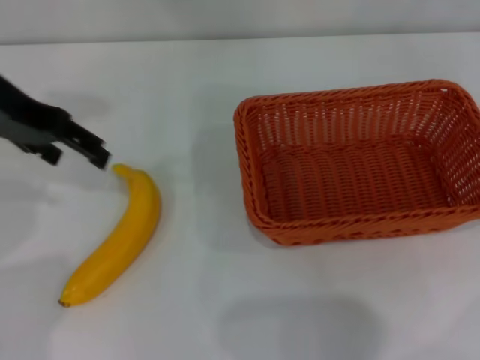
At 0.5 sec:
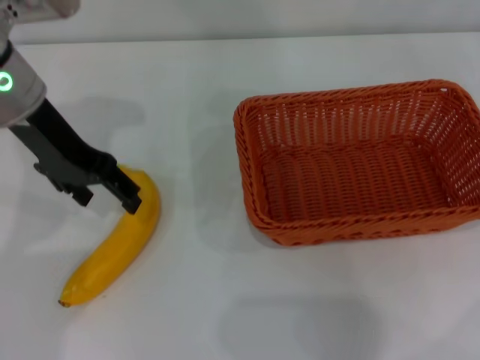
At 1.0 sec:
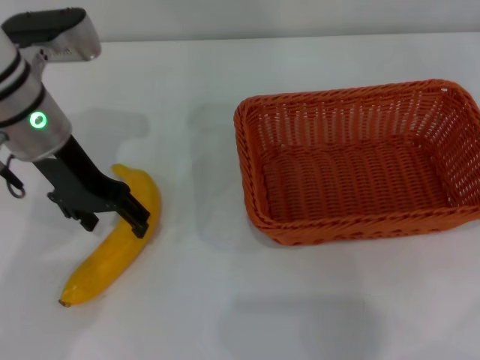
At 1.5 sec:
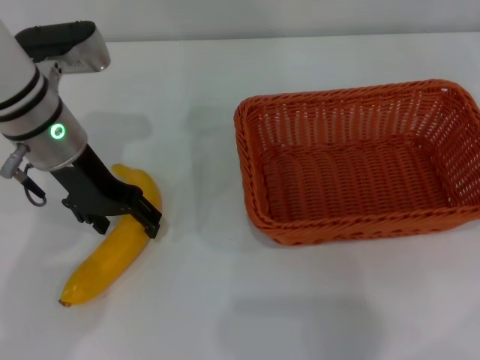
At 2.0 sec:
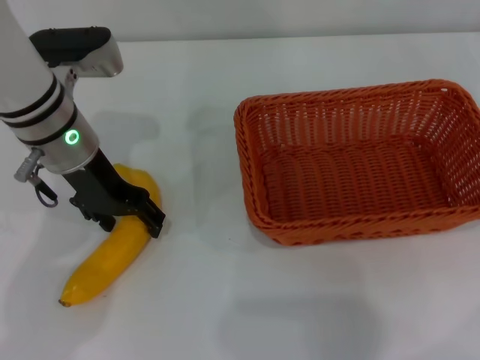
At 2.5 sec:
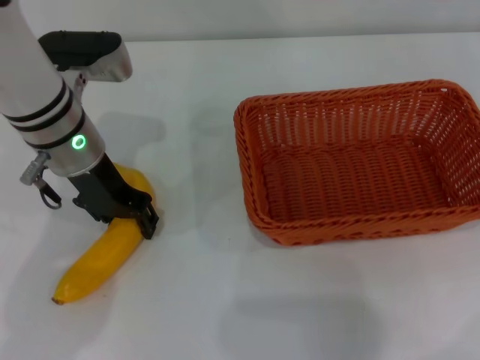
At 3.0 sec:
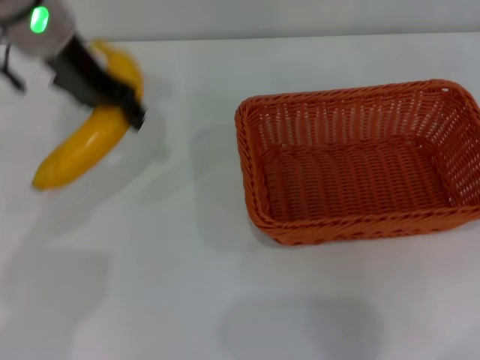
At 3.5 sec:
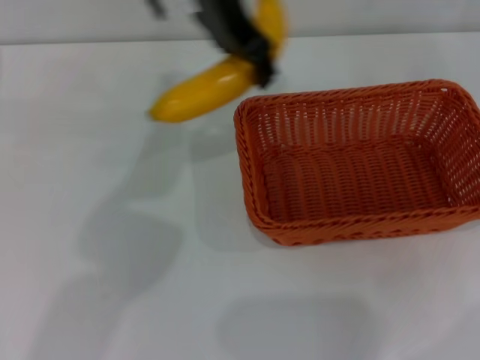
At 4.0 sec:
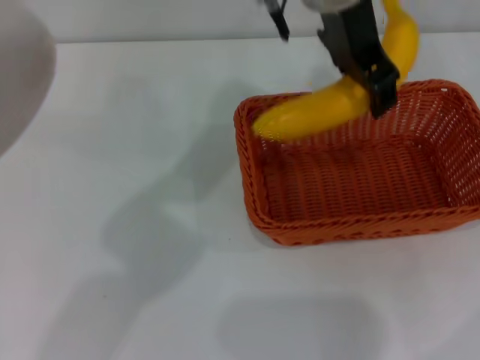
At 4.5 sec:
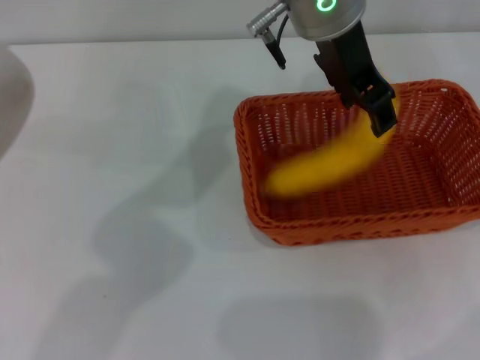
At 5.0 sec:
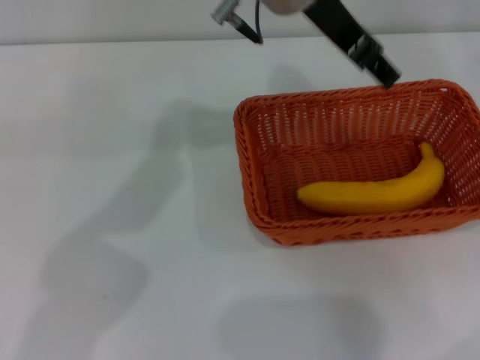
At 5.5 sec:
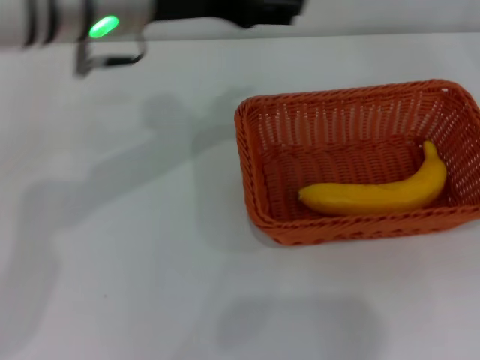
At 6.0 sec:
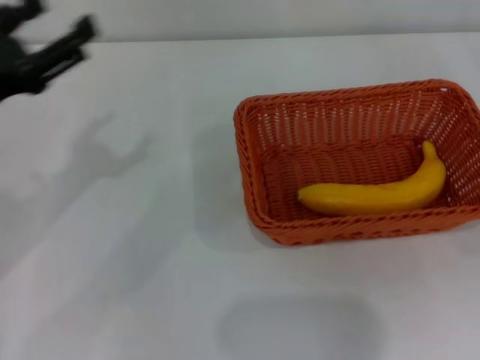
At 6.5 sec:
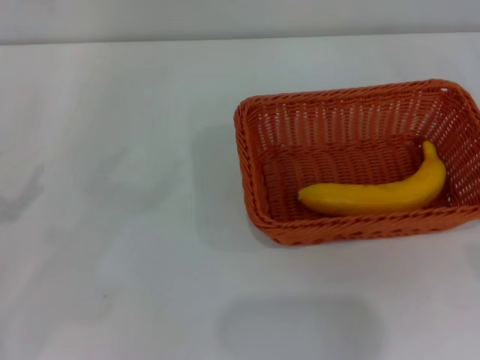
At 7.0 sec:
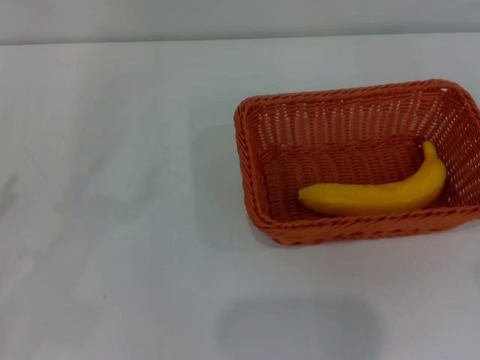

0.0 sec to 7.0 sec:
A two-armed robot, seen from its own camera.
Step, 0.0 sec to 2.5 sec: Pick up the banana with the left gripper.
Step, 3.0 sec to 4.5 sec: Place the banana into the light basket with the left gripper.
0.0 sec to 2.0 sec: The left gripper is displaced downward and to the right by roughly 15 cm.
2.0 sec to 3.5 sec: The left gripper travels upward and to the right by some 20 cm, and closes its fingers.
3.5 sec to 5.0 sec: The left gripper opens its fingers.
5.0 sec to 7.0 sec: The right gripper shifts about 15 cm downward and backward. Meanwhile the left gripper shifts about 50 cm to the left, backward and downward.

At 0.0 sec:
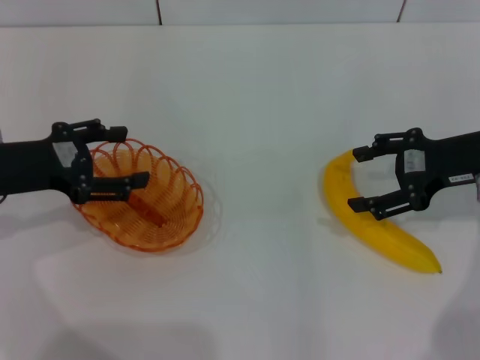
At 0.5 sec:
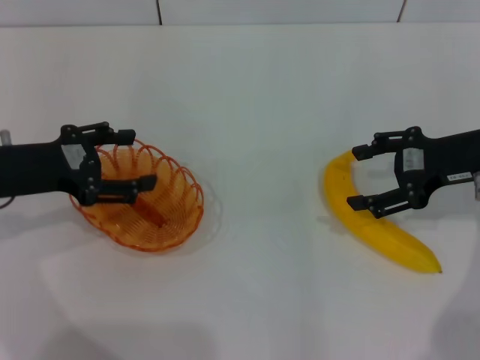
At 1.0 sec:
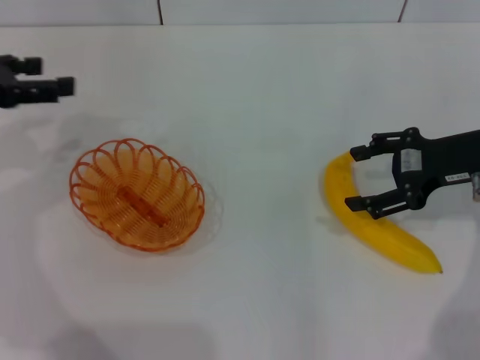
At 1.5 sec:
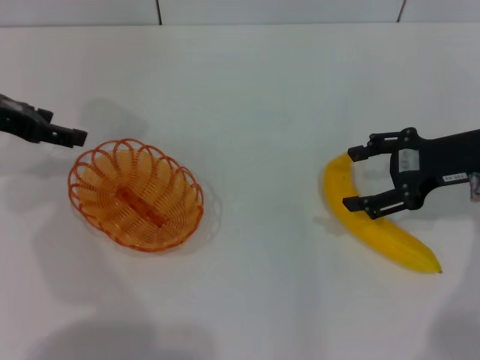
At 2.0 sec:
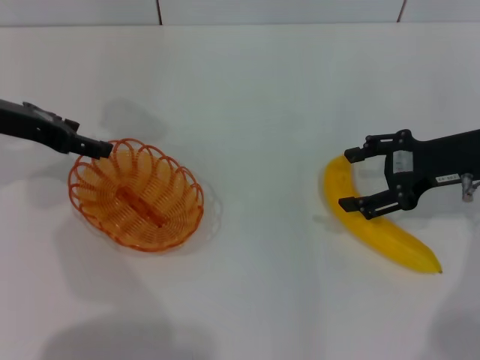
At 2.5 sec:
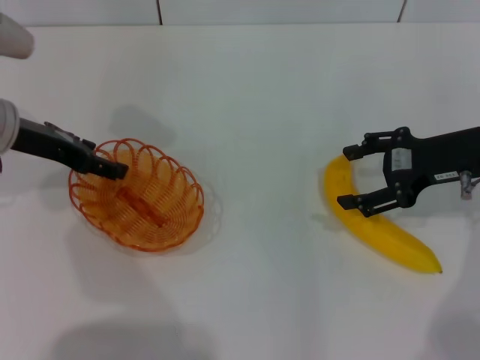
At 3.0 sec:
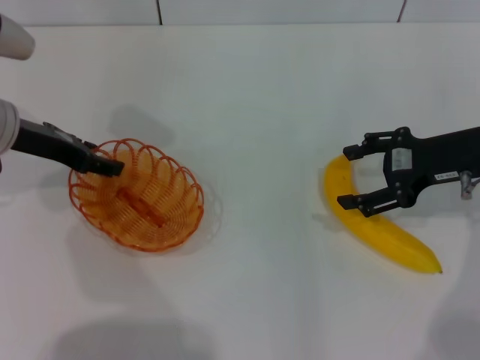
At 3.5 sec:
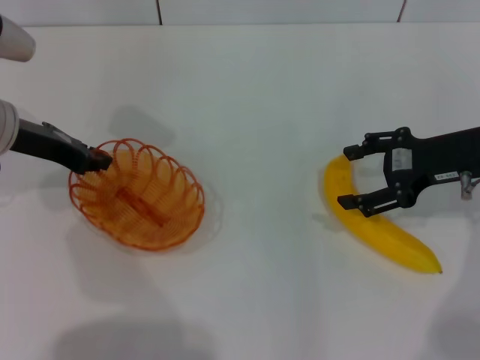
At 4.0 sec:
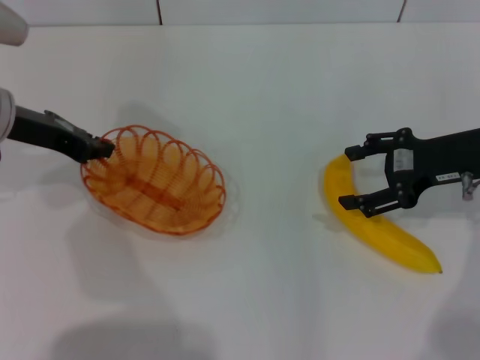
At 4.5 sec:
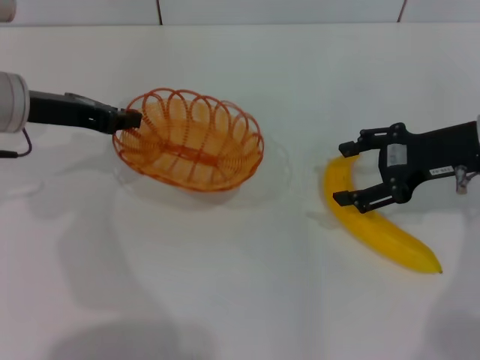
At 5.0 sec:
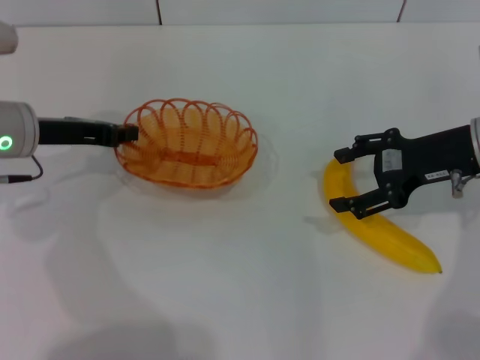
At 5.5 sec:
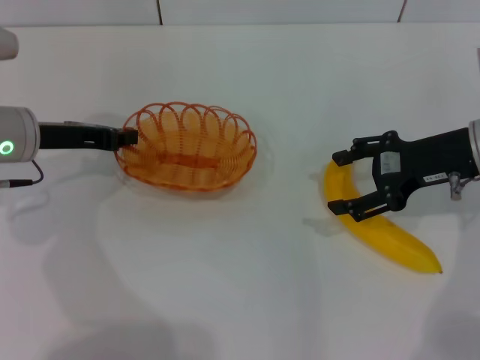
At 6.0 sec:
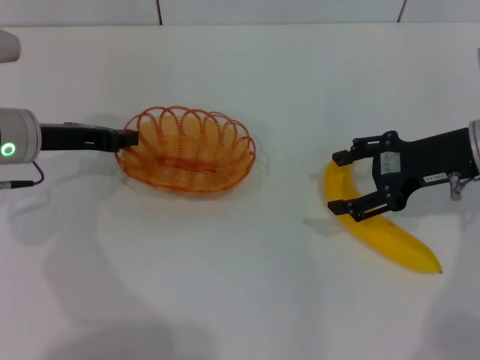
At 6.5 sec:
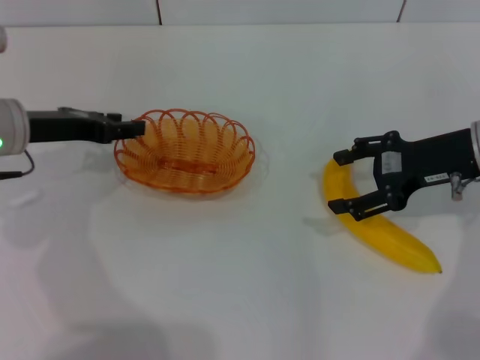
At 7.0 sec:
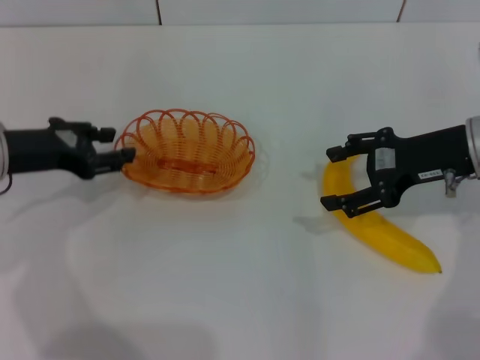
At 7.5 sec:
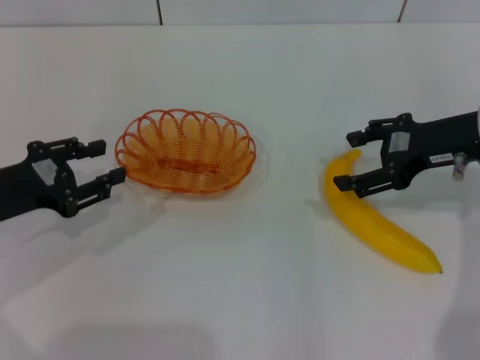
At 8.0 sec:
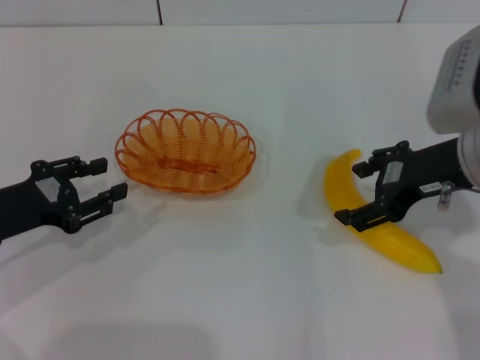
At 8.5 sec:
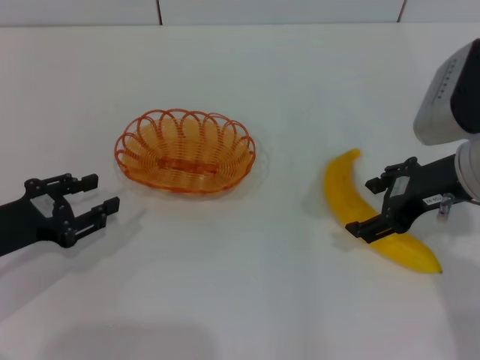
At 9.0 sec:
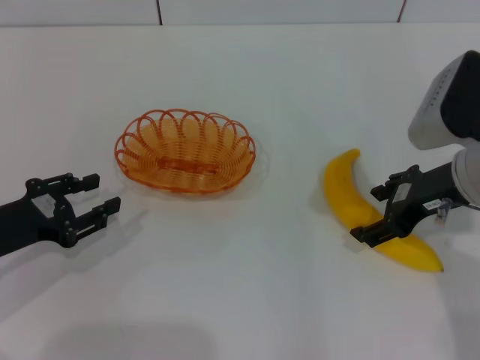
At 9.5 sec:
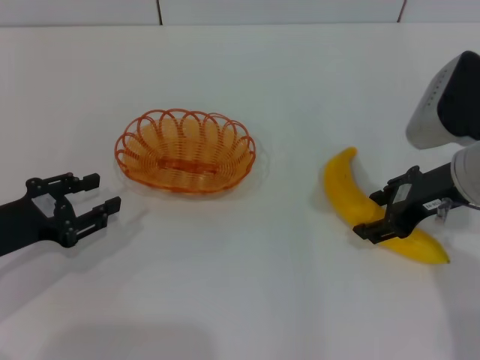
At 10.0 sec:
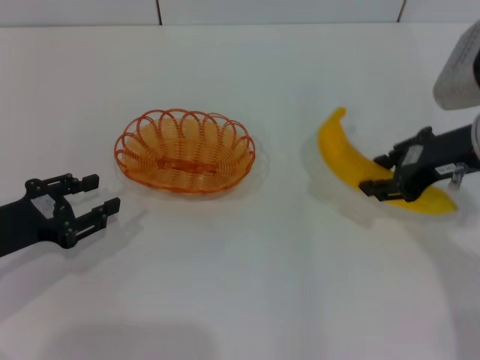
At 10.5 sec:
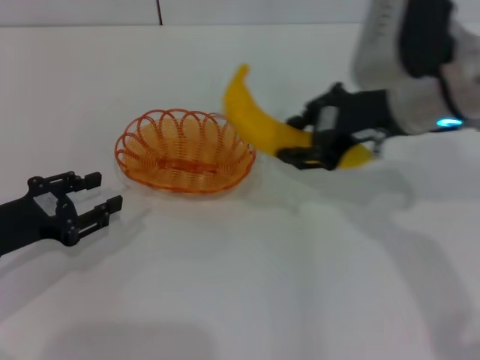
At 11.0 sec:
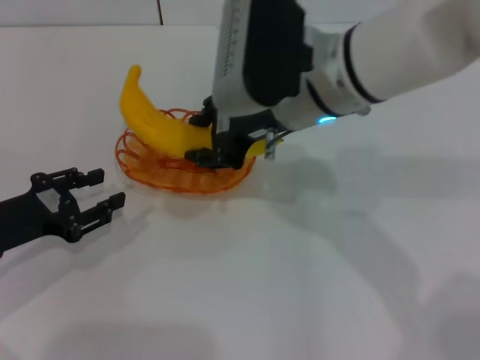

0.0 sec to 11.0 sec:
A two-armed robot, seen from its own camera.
Step, 0.0 sec to 4.0 sec: Pick up the basket with the left gripper.
Step, 4.5 sec to 6.5 sec: Place the basket in the center of view with the left gripper.
Step, 7.0 sec to 9.5 sec: Pick up the banana with the right gripper.
0.0 sec to 2.0 sec: The left gripper is displaced forward by some 5 cm.
2.0 sec to 3.5 sec: The left gripper closes its fingers.
3.5 sec to 5.5 sec: The left gripper closes its fingers.
5.5 sec to 7.5 sec: The left gripper moves backward, some 10 cm, and opens up.
9.0 sec to 11.0 sec: The right gripper goes roughly 15 cm to the left, and closes up.

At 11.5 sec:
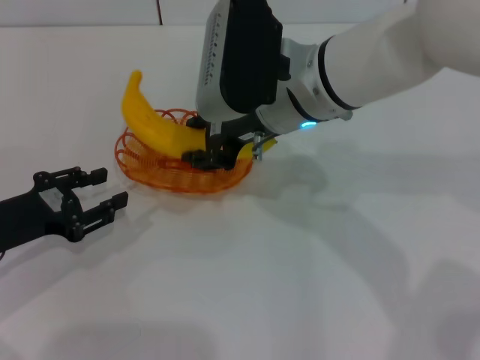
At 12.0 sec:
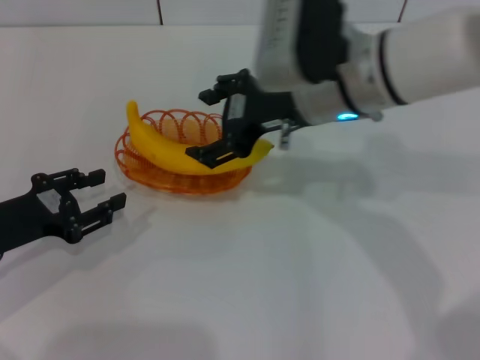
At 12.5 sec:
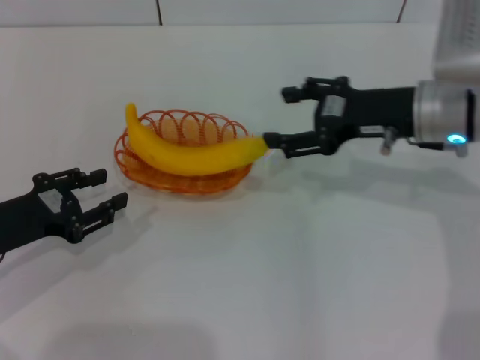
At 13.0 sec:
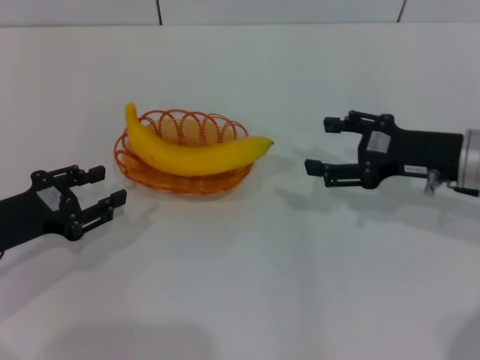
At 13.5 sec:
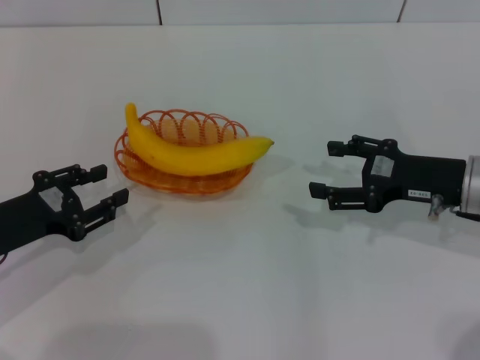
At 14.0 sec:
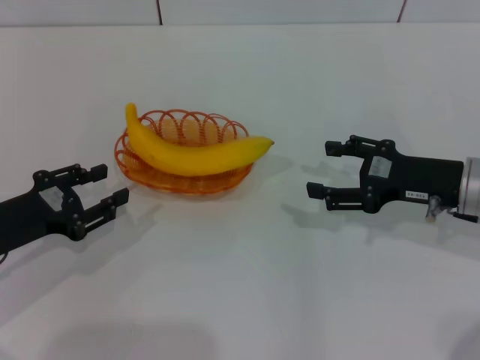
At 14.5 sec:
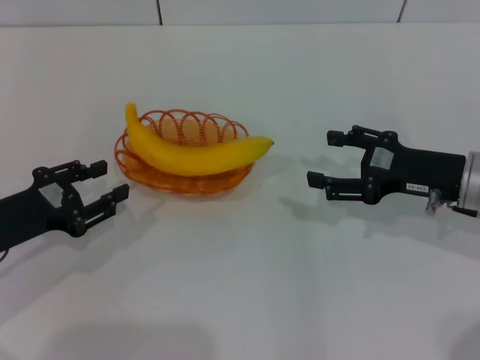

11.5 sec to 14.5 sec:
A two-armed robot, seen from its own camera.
11.5 sec to 13.0 sec: The right gripper shifts some 20 cm to the right, and opens up.
13.0 sec to 14.5 sec: There are only small adjustments of the grippers.
